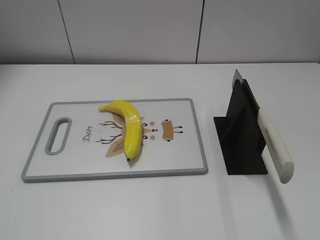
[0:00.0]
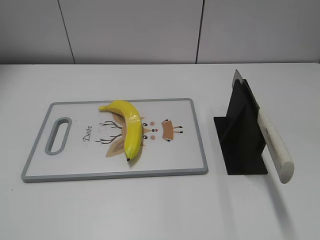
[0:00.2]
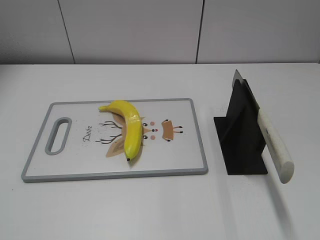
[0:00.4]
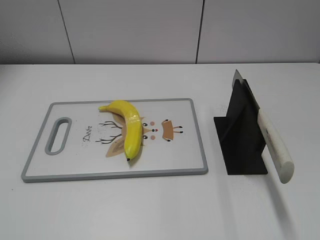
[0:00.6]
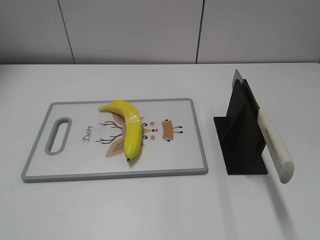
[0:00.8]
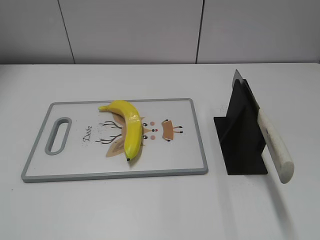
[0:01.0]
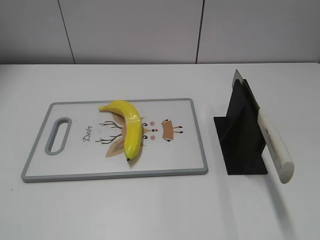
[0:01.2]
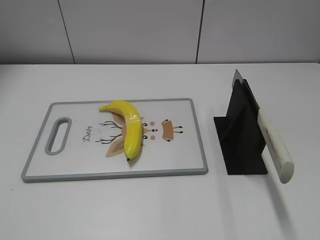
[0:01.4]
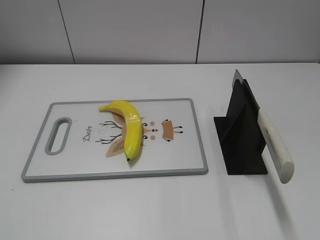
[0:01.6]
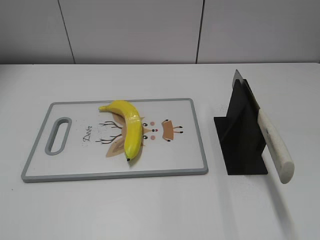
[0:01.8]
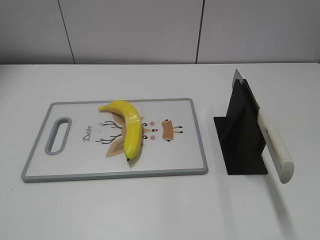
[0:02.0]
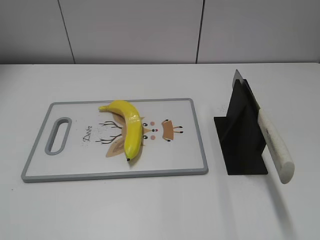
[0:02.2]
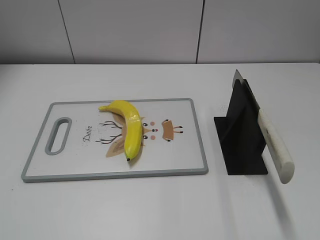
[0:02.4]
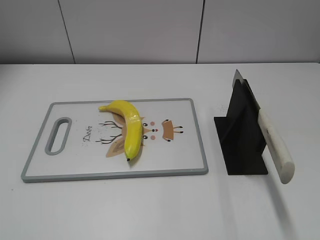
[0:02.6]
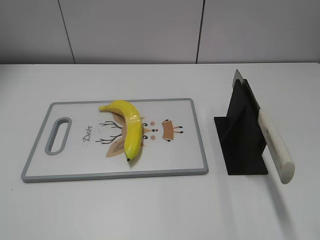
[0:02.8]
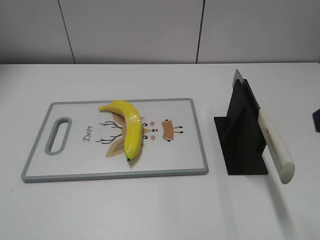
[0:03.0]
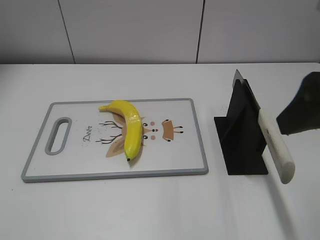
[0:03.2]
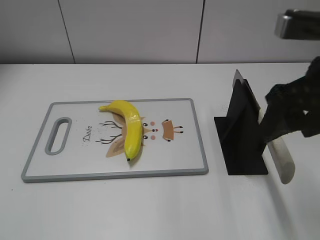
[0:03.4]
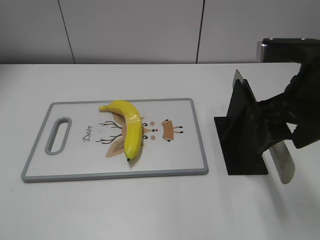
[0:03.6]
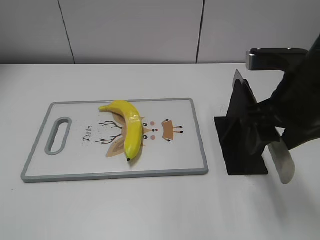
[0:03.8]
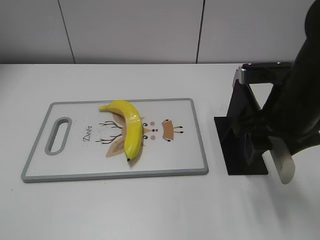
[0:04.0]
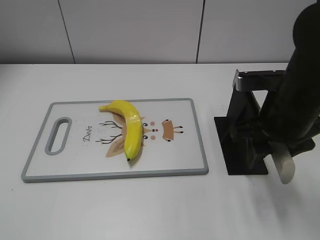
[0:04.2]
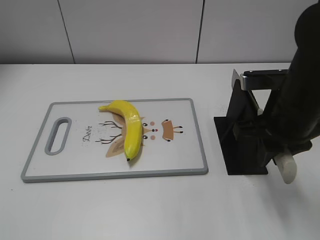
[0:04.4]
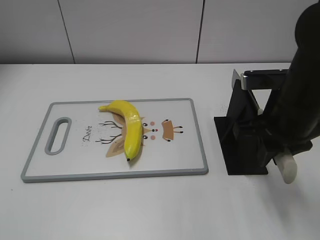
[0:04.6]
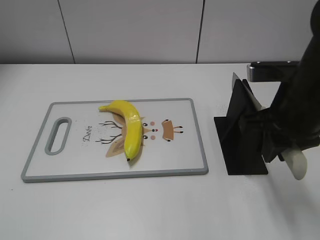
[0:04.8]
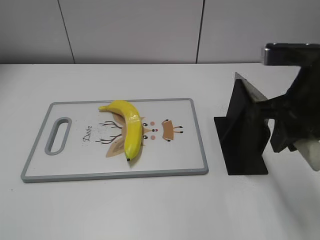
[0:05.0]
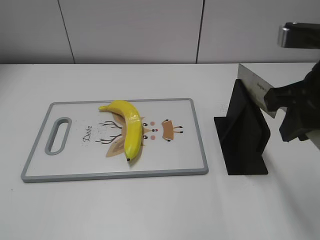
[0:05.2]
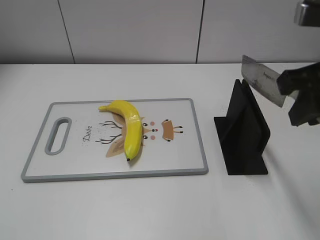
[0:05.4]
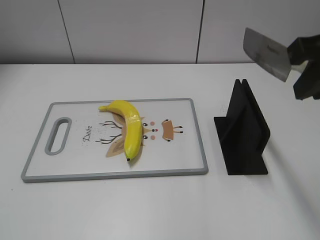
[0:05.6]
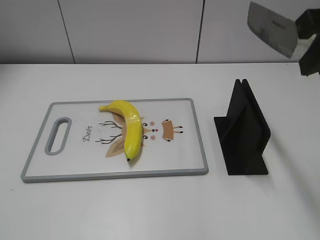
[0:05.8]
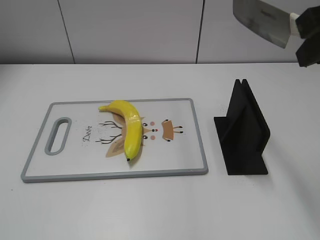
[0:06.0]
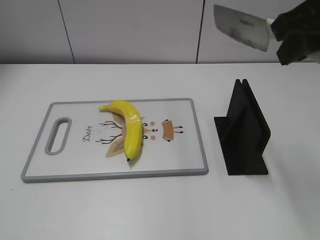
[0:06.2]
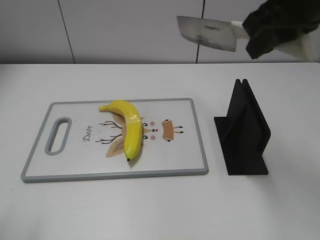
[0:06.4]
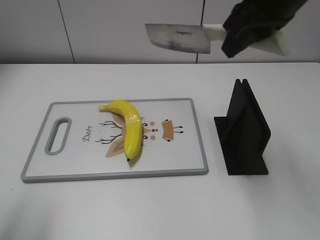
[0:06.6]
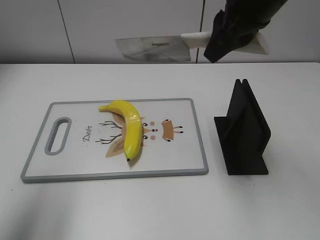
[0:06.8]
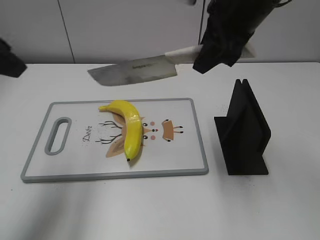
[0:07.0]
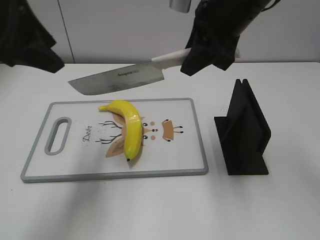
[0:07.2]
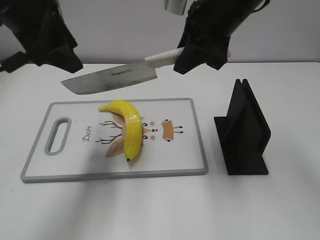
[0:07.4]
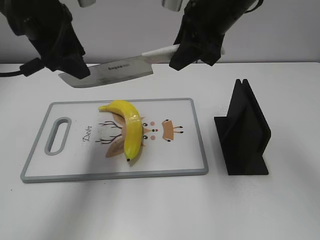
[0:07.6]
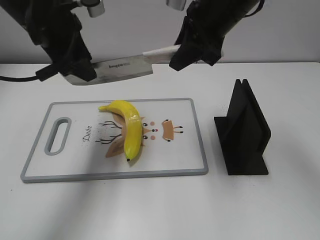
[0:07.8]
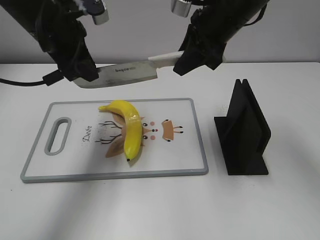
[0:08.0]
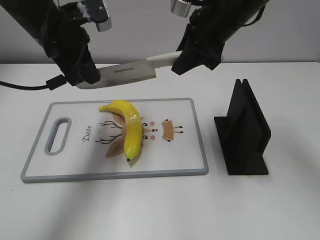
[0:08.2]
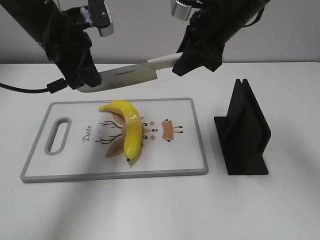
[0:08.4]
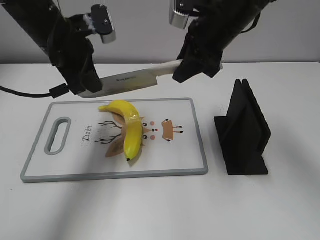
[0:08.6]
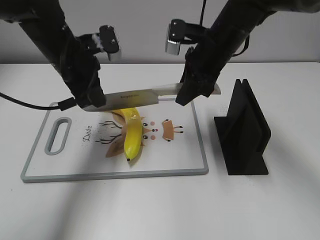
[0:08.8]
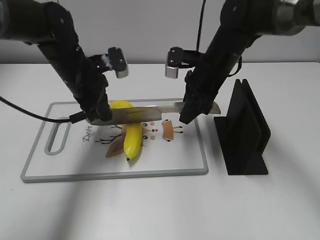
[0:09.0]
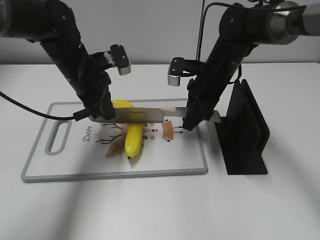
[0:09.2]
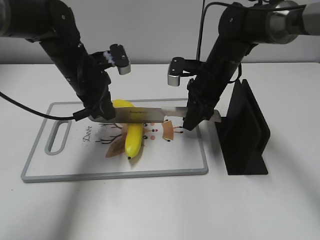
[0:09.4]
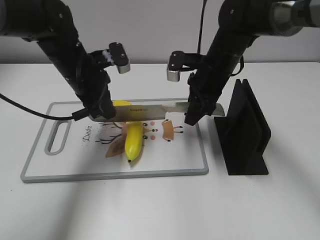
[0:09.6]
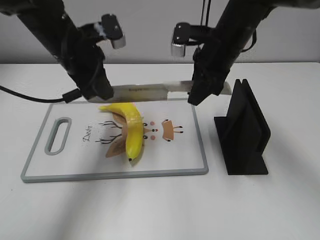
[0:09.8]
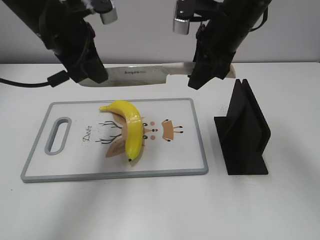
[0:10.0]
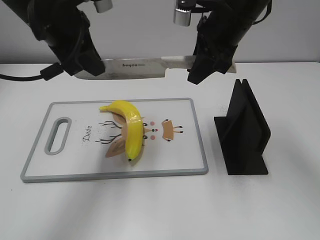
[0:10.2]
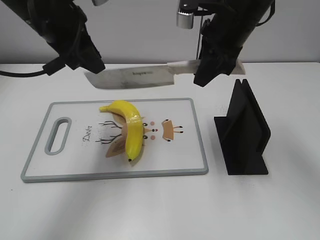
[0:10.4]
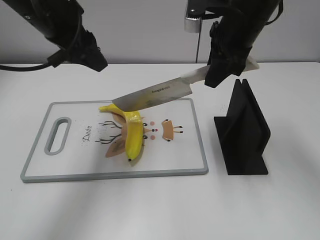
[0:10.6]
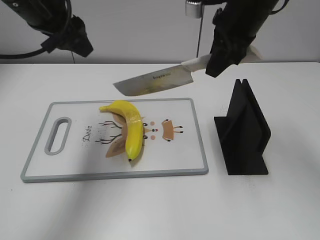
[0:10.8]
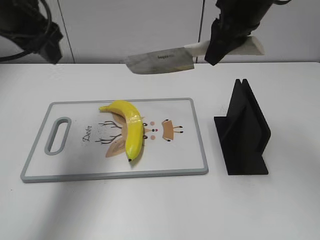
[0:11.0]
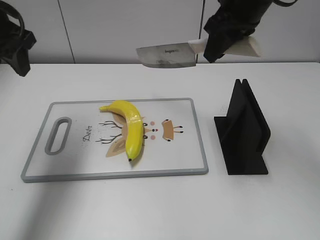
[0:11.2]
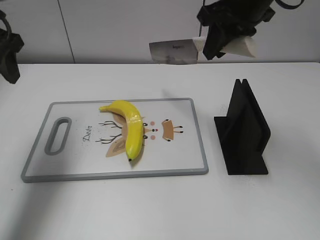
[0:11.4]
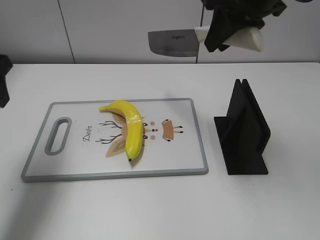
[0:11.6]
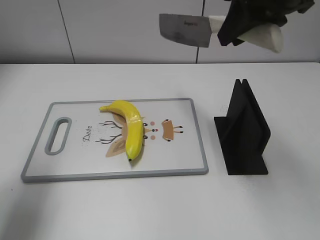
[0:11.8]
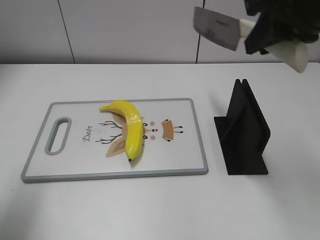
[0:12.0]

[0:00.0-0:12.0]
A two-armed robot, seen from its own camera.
Task of the whole recording: cut plastic banana.
Step, 0:00.0 to 0:05.4: Grab the knife handle with your right hand.
Step, 0:05.8 to 0:10.2: Hold the blade with your left hand.
Step, 0:10.4 to 0:11.6: Cut the banana with your right hand.
0:03.0 to 0:04.4: The right gripper heads downward, forward and to the left, covering about 20 cm, and closes.
0:04.4 to 0:06.0: The right gripper heads upward, covering some 15 cm.
0:06.0 to 0:07.6: The right gripper goes roughly 20 cm forward, to the left and downward. Meanwhile the left gripper is displaced forward and to the right by some 35 cm.
0:07.6 to 0:09.0: The two grippers go some 15 cm downward. The left gripper closes.
0:09.0 to 0:10.4: The grippers both shift upward by roughly 10 cm. The left gripper opens.
0:10.4 to 0:12.0: The right gripper moves backward, upward and to the right, roughly 15 cm, while the left gripper heads backward and to the left, covering some 20 cm, and opens.

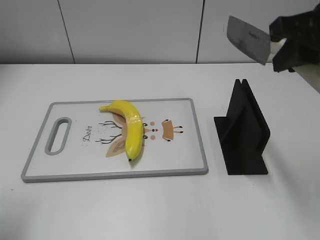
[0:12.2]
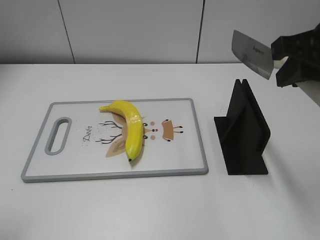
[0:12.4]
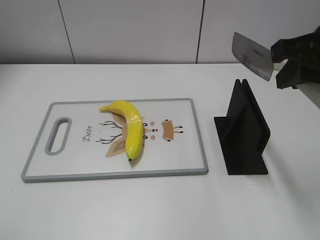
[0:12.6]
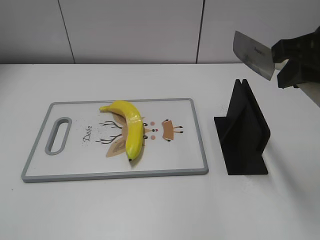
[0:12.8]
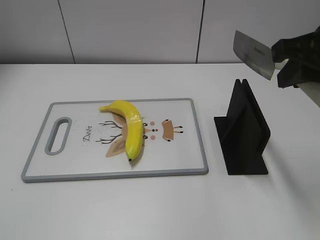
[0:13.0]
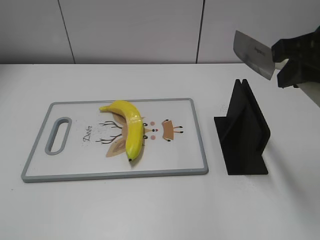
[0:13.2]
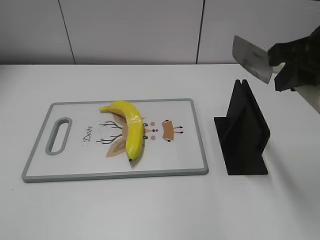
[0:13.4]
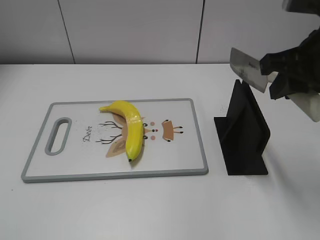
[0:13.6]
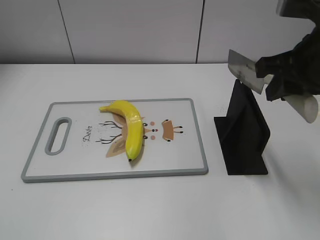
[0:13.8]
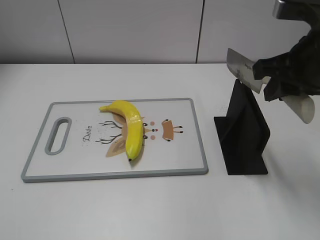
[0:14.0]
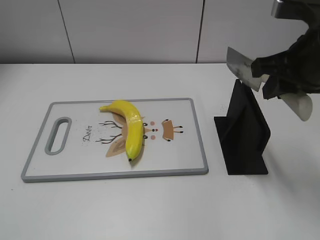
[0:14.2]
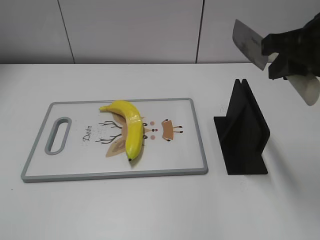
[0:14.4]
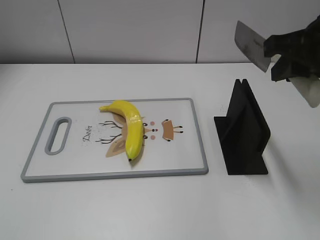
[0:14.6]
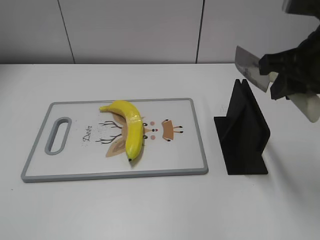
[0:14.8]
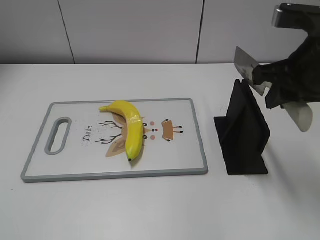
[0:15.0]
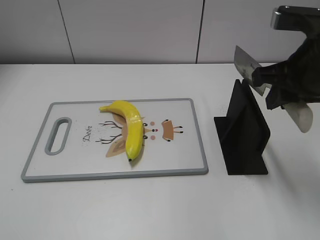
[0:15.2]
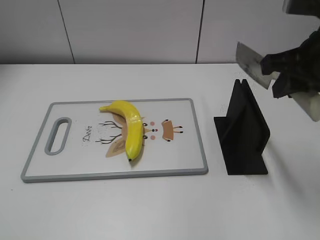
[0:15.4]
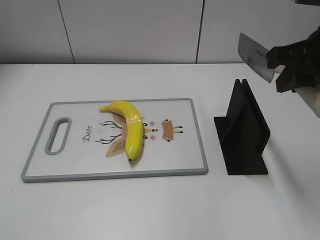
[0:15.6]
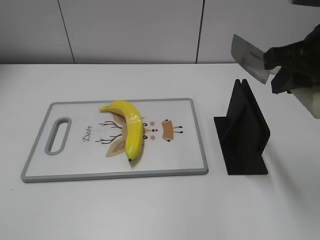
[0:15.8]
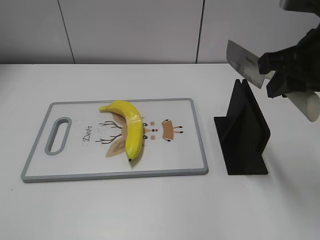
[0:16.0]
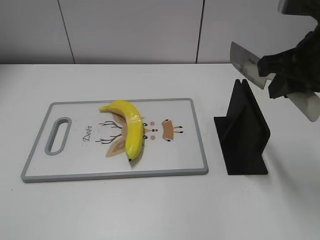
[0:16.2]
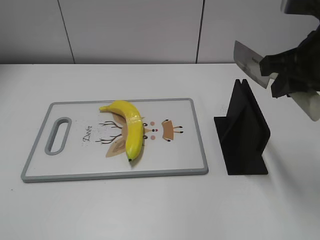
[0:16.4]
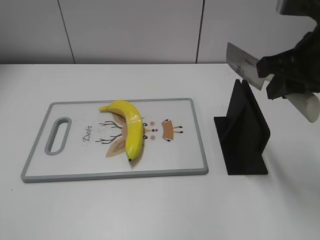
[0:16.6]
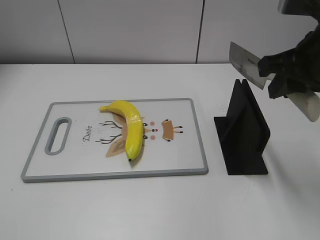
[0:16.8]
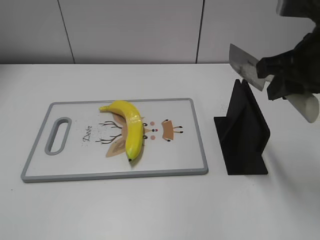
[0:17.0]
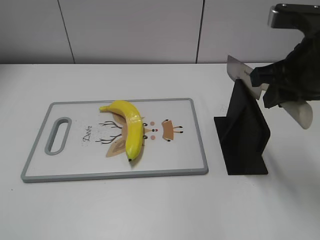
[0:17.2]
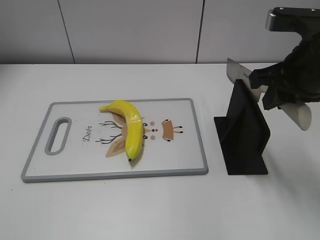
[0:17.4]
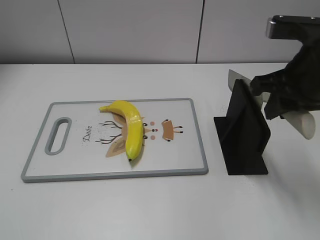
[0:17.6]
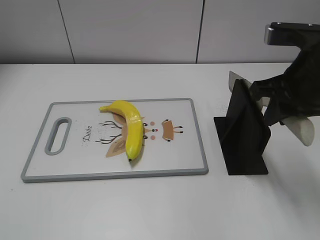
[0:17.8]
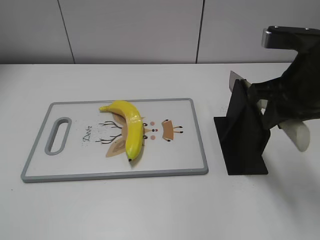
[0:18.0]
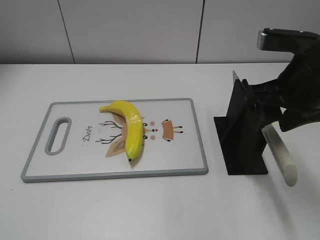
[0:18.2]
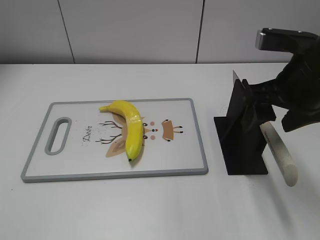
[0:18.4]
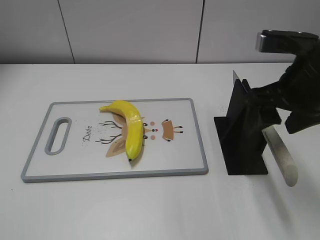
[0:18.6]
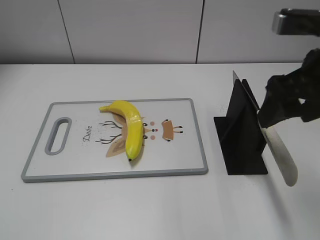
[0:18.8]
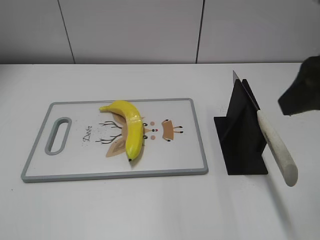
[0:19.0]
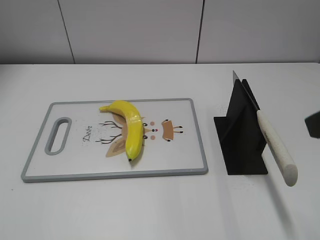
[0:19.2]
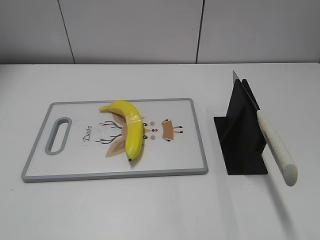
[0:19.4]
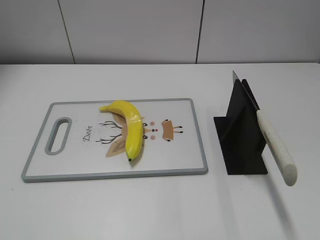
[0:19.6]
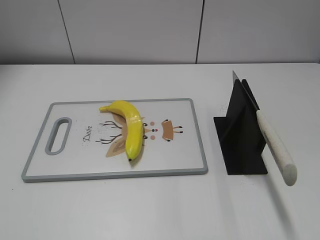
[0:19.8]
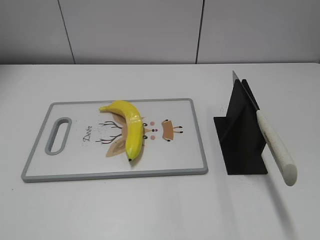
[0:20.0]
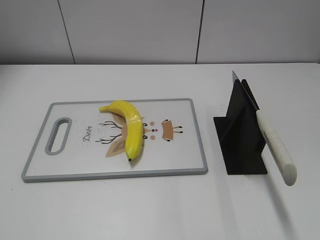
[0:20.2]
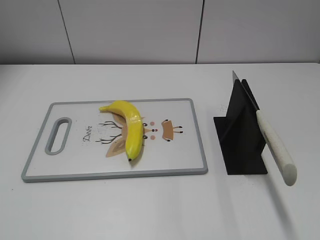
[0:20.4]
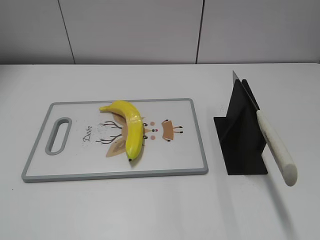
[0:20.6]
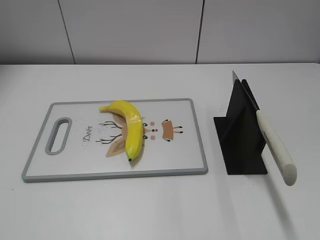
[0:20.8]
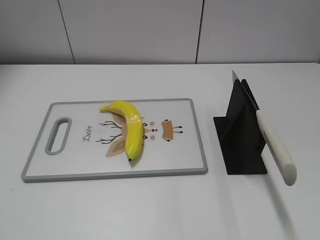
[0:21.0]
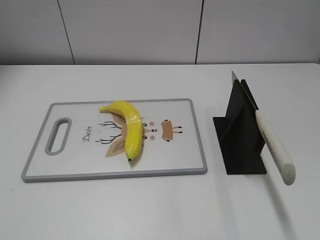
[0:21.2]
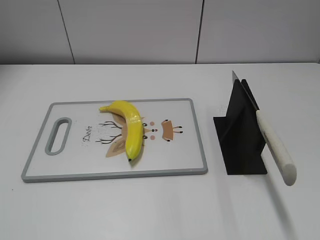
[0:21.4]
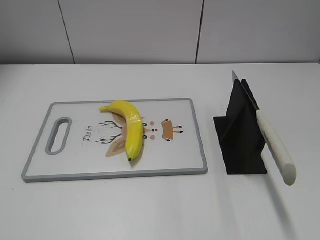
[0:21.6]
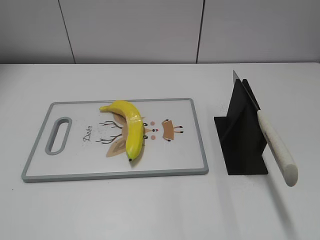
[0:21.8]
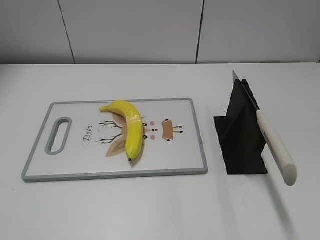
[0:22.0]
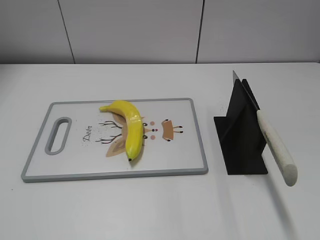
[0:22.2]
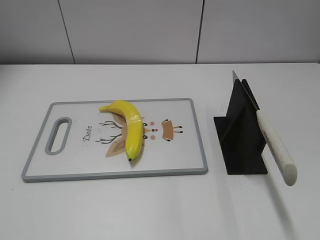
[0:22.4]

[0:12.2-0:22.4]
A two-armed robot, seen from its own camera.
Task of the whole recording: cut plastic banana.
Step, 0:12.2 to 0:12.8: Lift the knife with your right hand.
Step, 0:13.0 to 0:22.4: Place the knife on the storage rack with your right hand.
0:13.6 to 0:18.0: The grippers stay close to where they were, moving slightly.
0:18.0 to 0:19.4: The right gripper moves backward, about 15 cm, and opens its fingers.
